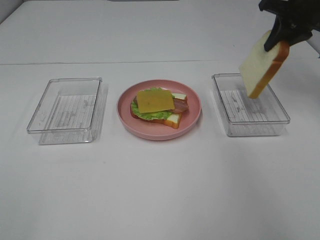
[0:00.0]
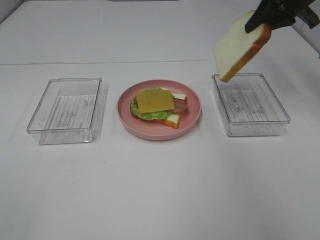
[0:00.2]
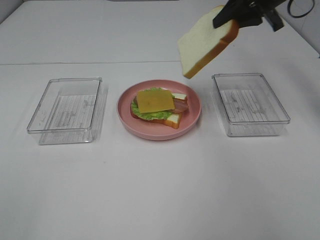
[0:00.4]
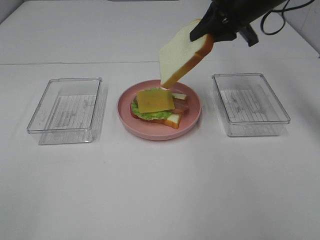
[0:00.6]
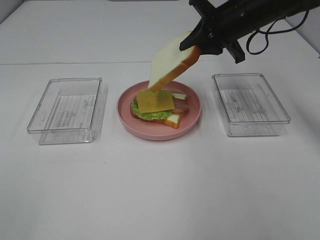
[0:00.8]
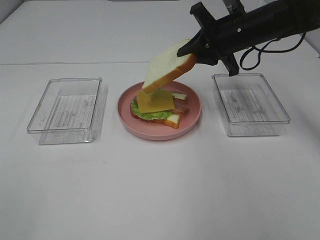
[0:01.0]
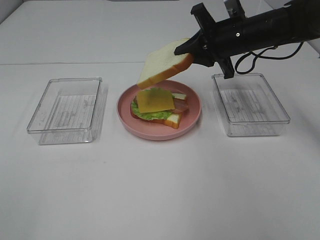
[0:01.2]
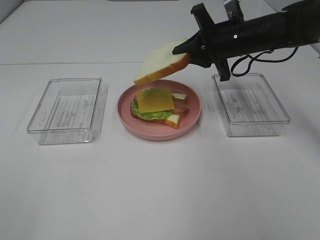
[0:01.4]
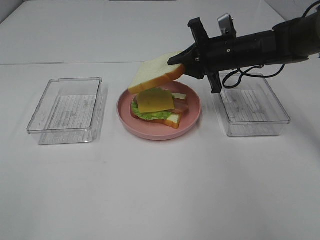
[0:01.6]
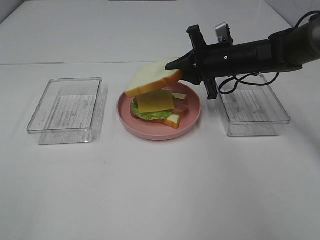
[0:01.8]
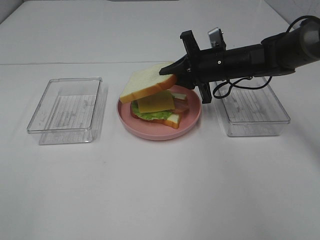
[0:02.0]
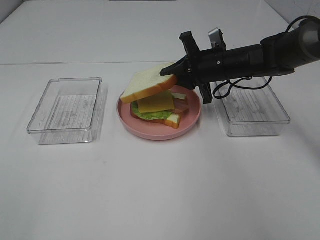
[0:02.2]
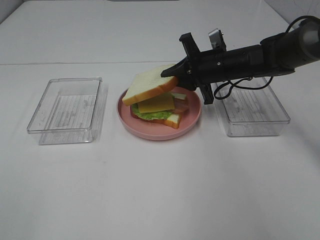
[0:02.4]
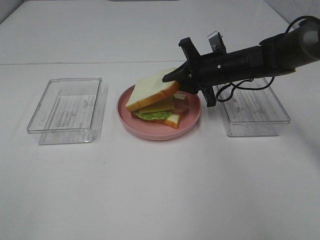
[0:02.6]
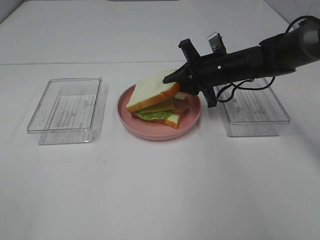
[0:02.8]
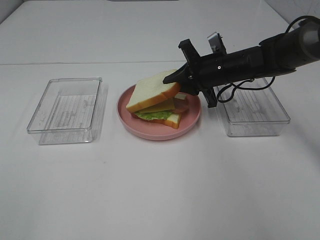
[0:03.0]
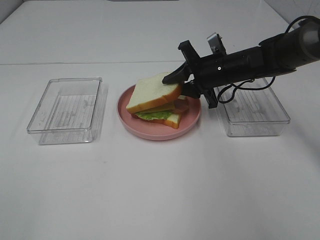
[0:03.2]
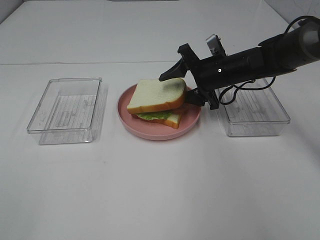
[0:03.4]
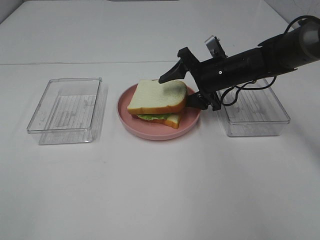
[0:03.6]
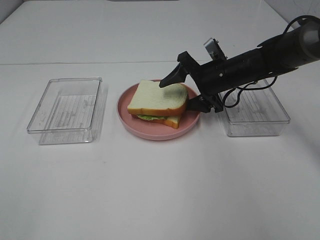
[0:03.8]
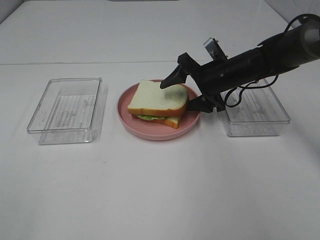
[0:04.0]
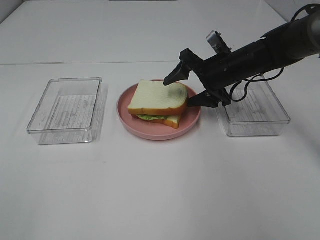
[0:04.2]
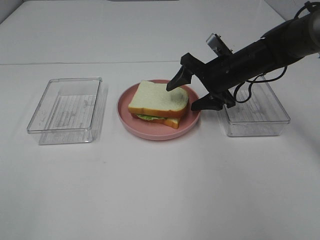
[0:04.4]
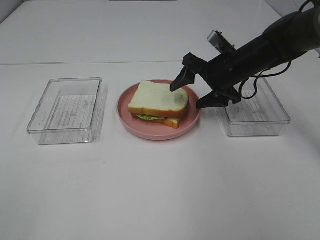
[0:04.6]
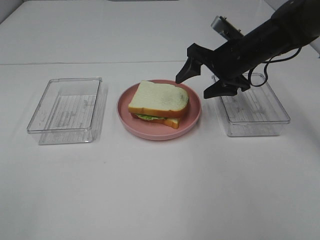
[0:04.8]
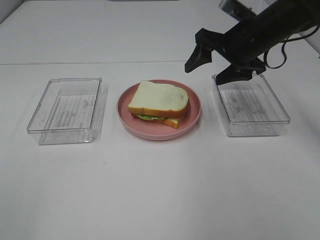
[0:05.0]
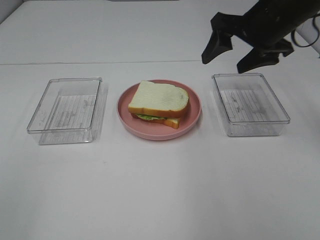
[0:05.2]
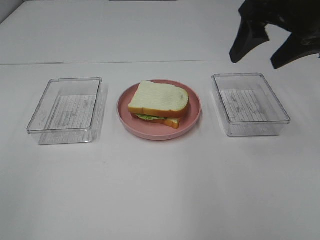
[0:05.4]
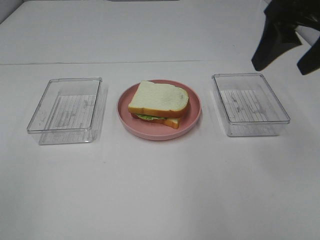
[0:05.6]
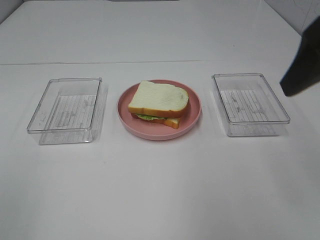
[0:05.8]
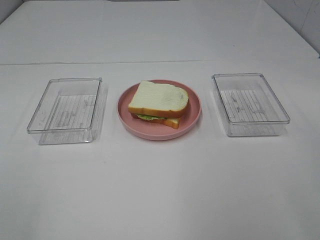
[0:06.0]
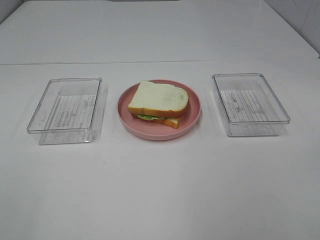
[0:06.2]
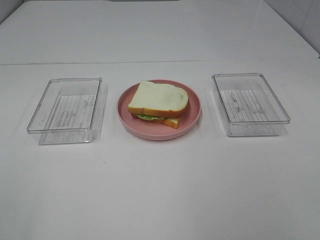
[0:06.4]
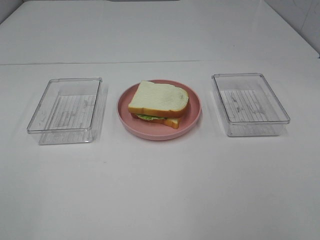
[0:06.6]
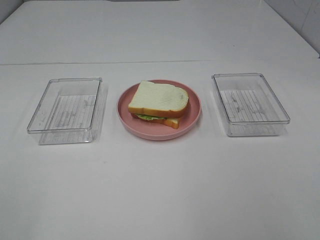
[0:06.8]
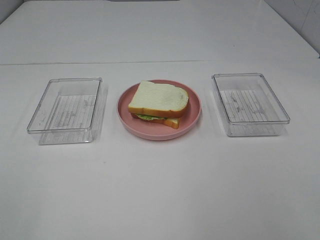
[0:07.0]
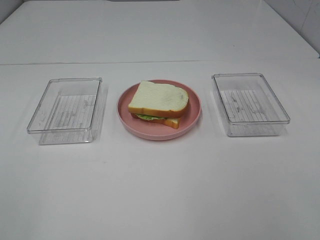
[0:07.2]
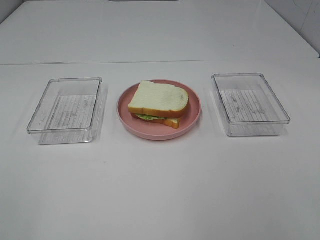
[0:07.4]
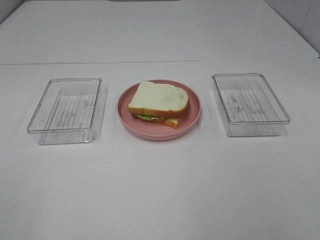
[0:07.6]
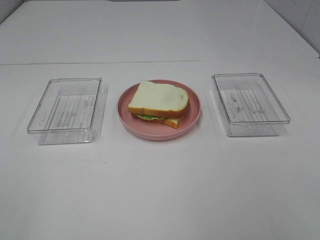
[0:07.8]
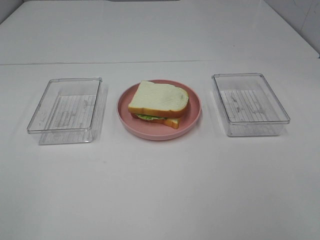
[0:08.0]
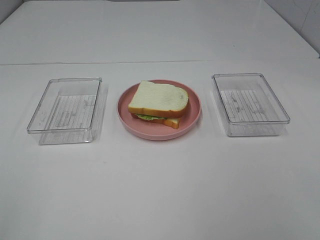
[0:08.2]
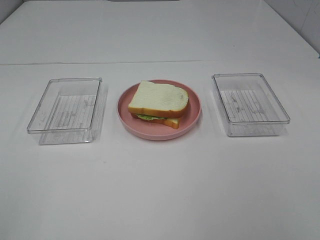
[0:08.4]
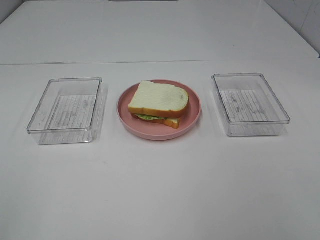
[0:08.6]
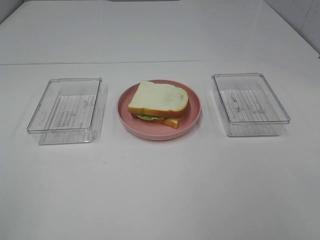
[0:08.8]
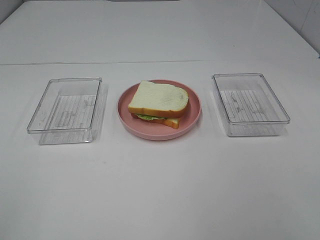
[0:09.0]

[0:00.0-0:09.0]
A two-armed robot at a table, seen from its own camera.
Task of the whole recording: Make sandwiches.
Step, 0:00.0 to 0:04.4: Right hand:place the bread slice on the cheese slice.
0:00.0 to 0:01.6: The right gripper is displaced downward and to the left by about 20 cm.
0:01.6 to 0:03.0: The grippers make only small movements.
0:03.0 to 0:04.4: The right gripper opens up.
0:04.4 to 0:06.0: The right gripper shifts roughly 35 cm backward and upward.

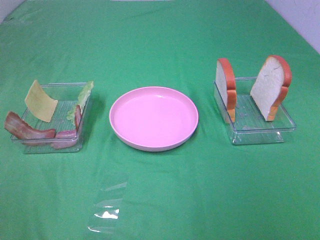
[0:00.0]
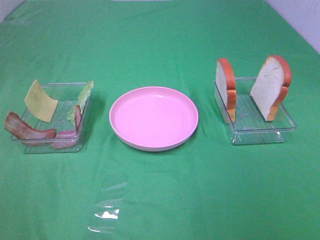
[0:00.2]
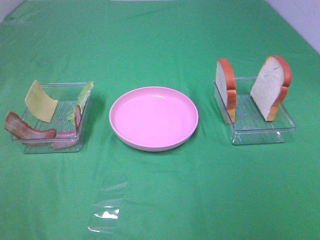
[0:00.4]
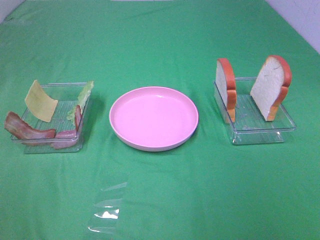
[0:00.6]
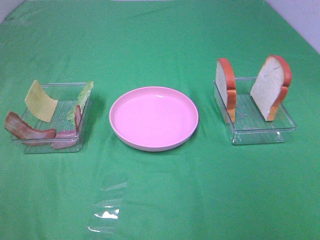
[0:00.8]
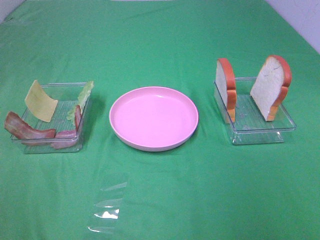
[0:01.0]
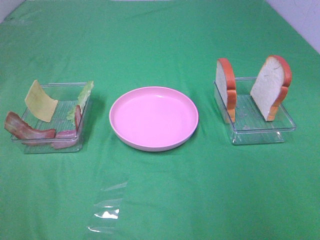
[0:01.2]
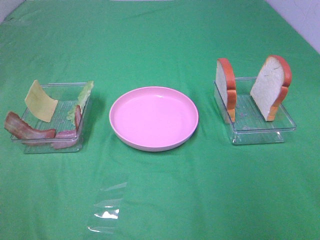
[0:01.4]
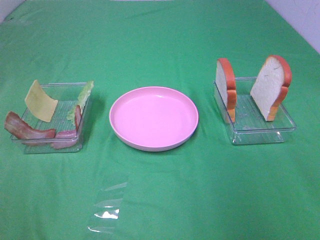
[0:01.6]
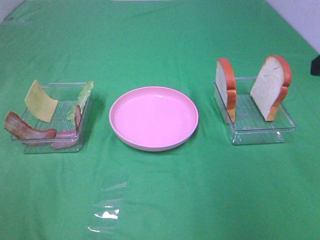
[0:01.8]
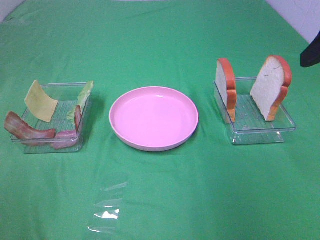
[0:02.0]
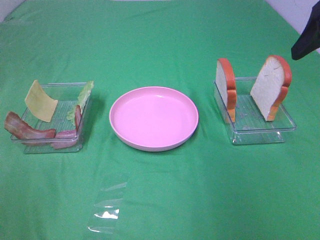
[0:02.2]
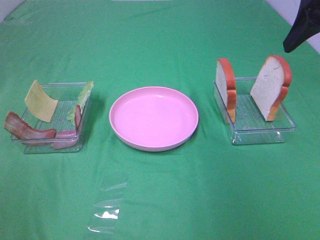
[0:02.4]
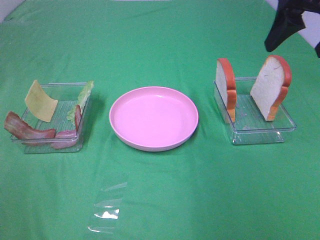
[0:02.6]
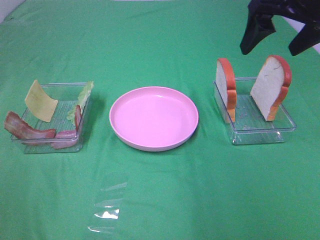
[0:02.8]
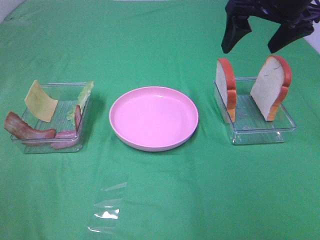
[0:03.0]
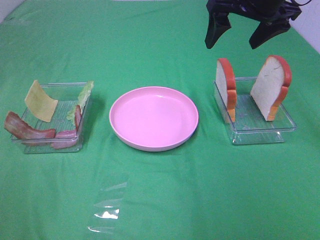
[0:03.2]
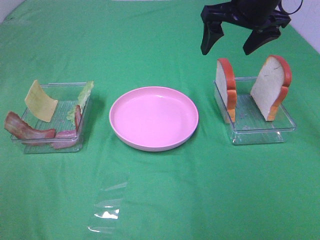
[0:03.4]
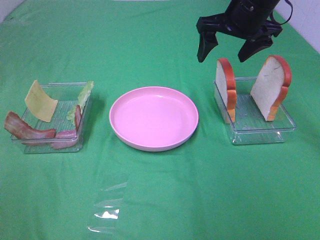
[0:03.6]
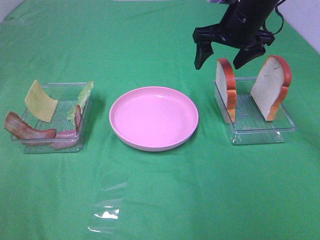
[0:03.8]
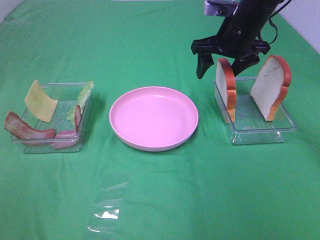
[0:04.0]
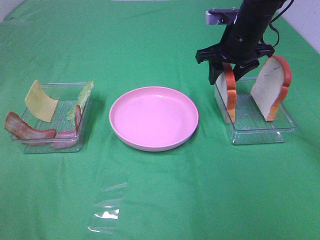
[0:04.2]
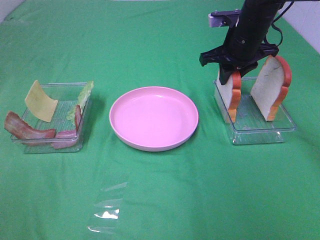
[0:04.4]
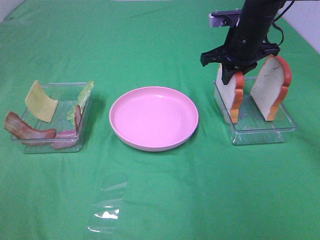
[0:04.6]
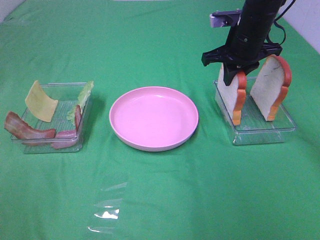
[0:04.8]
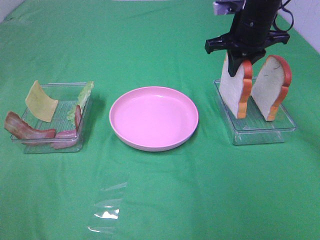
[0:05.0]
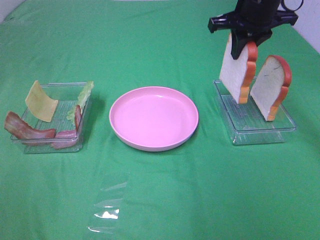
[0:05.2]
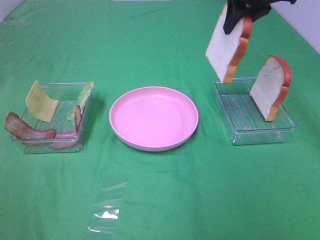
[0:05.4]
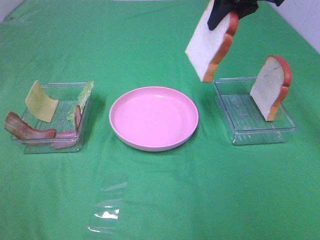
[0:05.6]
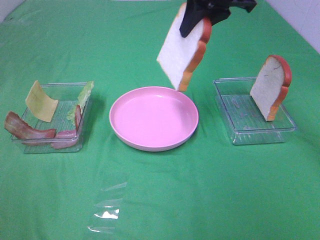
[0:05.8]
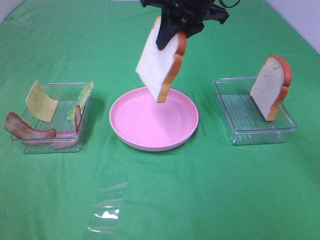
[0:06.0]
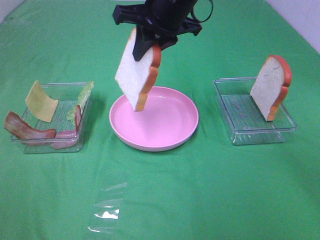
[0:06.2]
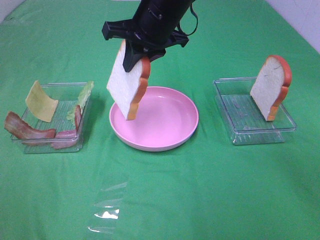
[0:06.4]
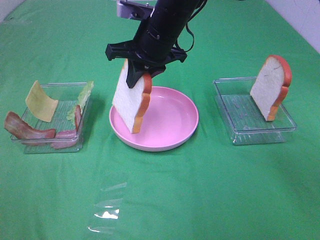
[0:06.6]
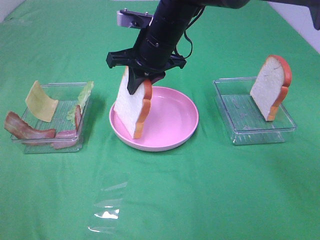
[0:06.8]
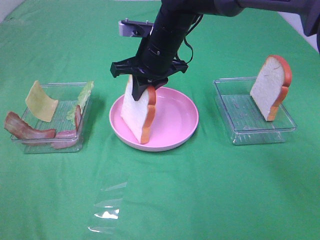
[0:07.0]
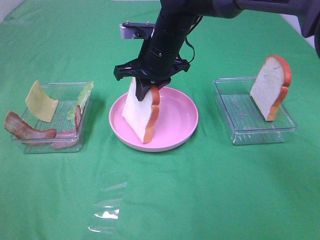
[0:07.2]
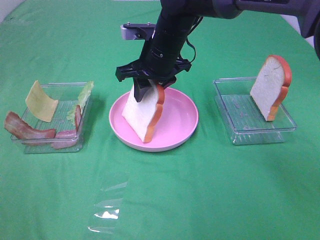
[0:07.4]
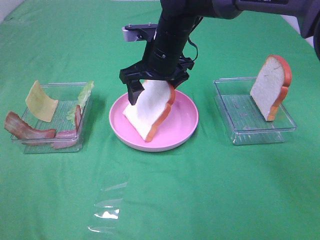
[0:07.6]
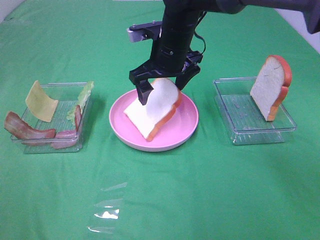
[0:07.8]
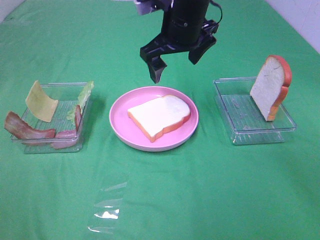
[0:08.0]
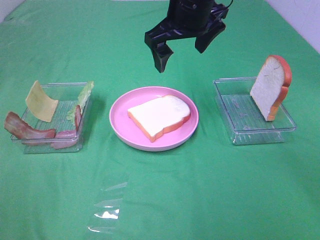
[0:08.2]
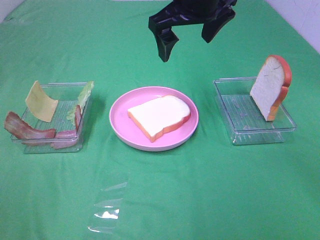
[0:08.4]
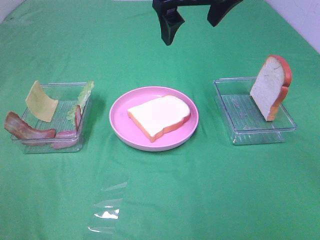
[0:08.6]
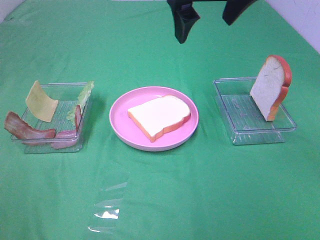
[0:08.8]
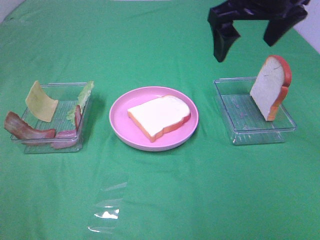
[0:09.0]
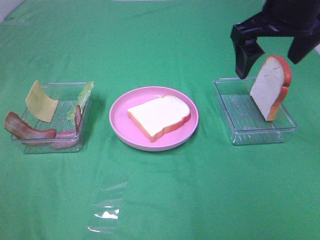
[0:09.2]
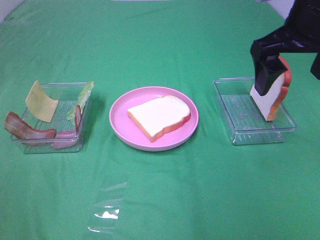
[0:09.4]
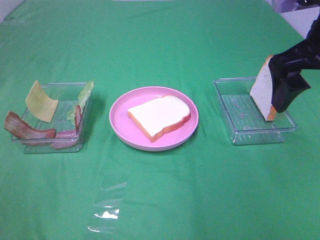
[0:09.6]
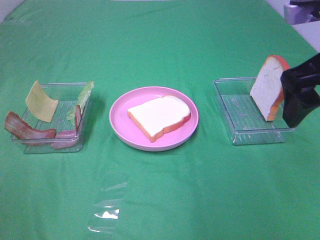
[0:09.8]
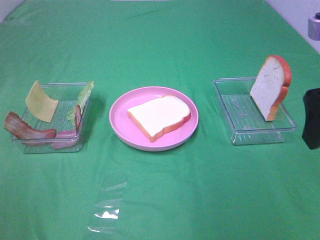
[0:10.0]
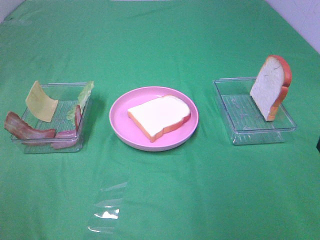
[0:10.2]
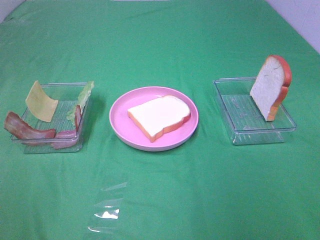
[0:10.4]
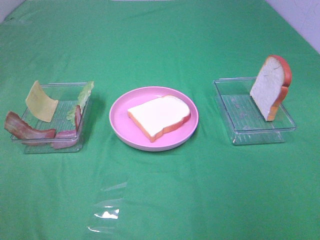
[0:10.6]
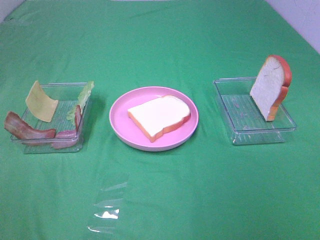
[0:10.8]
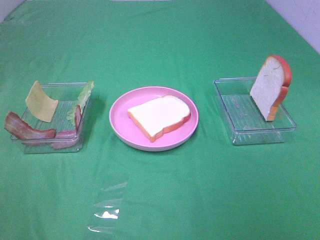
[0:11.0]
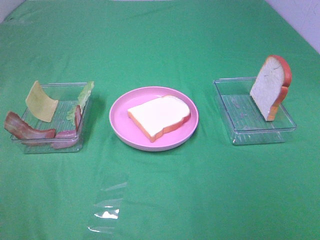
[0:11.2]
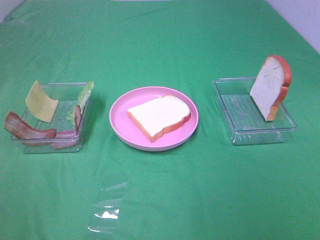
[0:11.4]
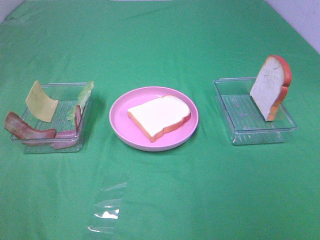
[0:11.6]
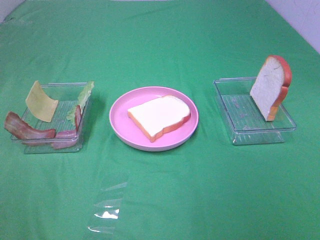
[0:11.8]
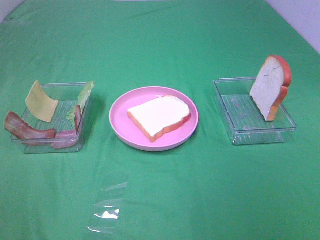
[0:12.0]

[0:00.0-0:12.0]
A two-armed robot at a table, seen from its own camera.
Task of the whole recording: Make sandwiches.
Step, 0:00.0 to 0:04.4: Right hand:grab the bread slice.
Step, 0:04.6 to 0:07.8: Right hand:place the bread slice on the plate.
0:01.6 to 0:03.0: The right gripper is displaced forward and to the left by about 25 cm.
0:03.0 to 0:04.4: The right gripper travels downward and forward by some 15 cm, and closes its fingers.
0:04.4 to 0:06.0: The right gripper travels to the left and upward by roughly 15 cm.
0:06.0 to 0:07.6: The right gripper moves downward, some 10 cm, and opens its fingers.
0:07.6 to 0:09.0: The right gripper moves upward, to the right and backward, some 20 cm.
0:09.0 to 0:10.4: The right gripper goes about 25 cm backward and to the right.

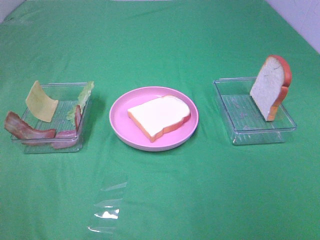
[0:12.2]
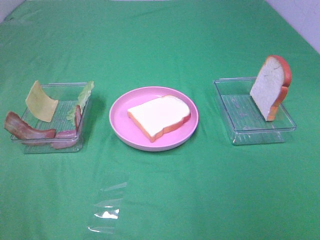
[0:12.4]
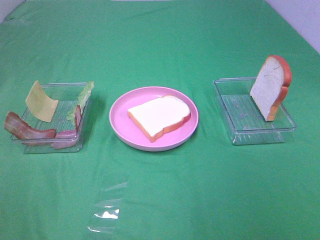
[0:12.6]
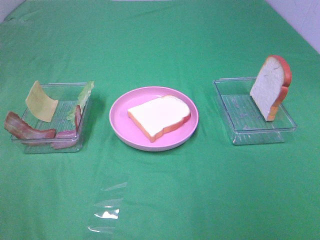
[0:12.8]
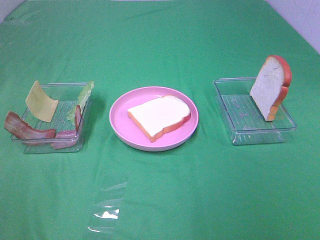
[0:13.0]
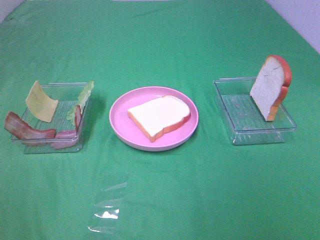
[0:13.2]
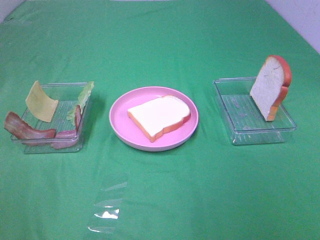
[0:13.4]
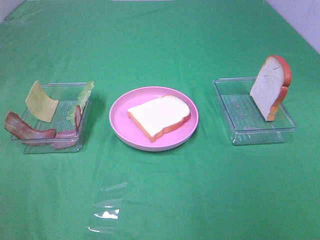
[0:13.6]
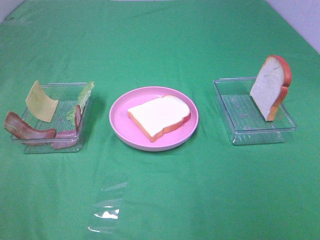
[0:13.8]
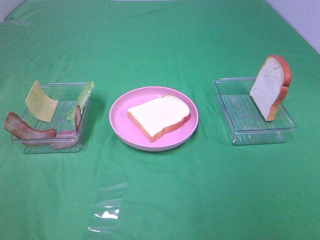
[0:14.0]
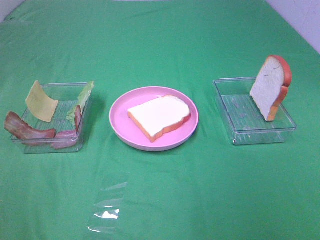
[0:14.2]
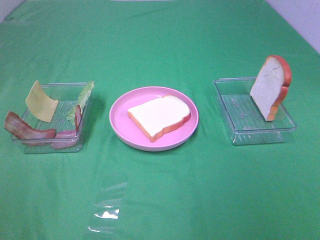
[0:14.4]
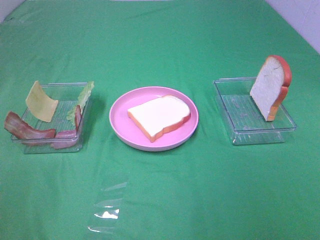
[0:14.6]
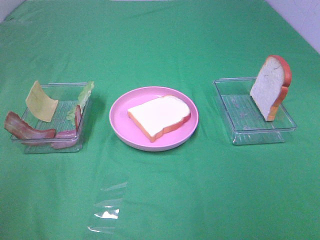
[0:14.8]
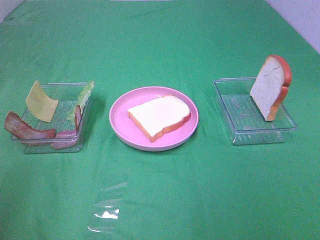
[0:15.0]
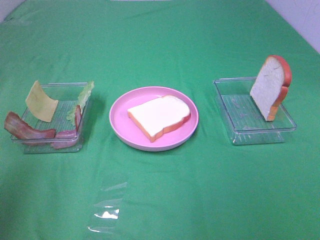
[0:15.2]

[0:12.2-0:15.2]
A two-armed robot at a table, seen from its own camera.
Task of the whole recording: Make sandwiches.
0:13.8 to 0:15.2: The left gripper is displaced forward and upward by some 15 cm.
